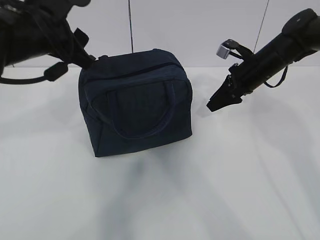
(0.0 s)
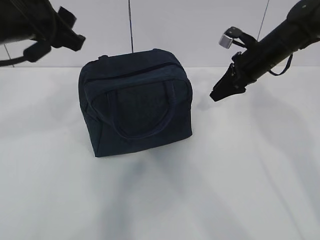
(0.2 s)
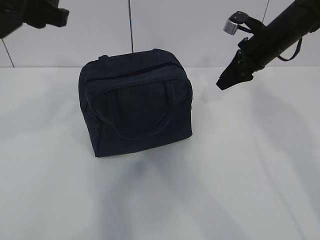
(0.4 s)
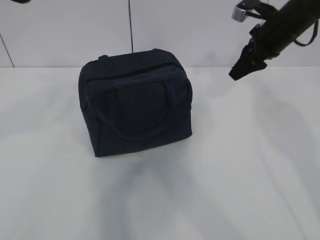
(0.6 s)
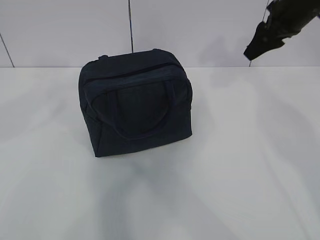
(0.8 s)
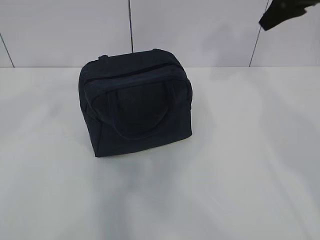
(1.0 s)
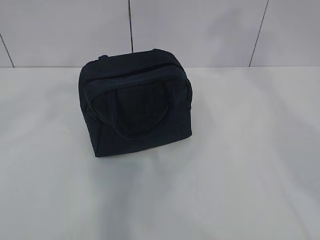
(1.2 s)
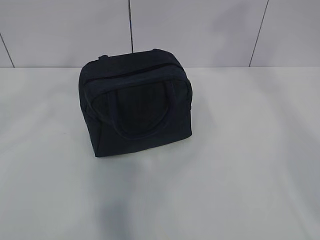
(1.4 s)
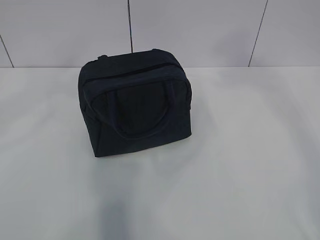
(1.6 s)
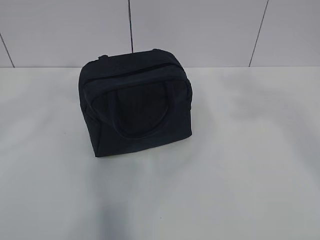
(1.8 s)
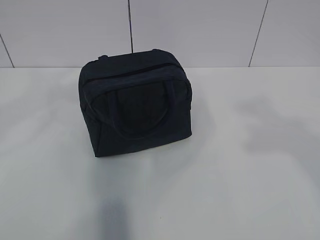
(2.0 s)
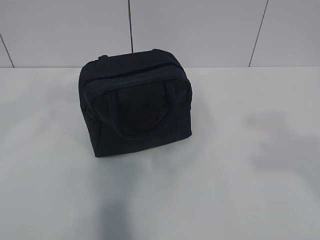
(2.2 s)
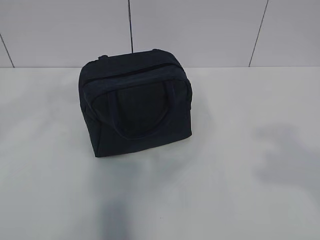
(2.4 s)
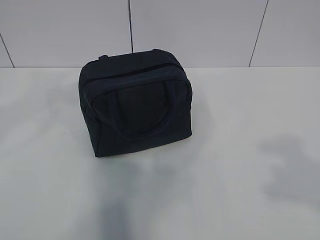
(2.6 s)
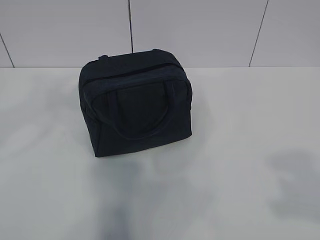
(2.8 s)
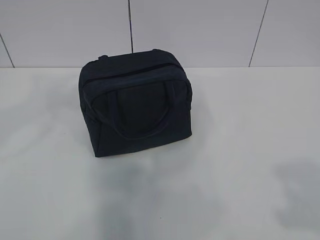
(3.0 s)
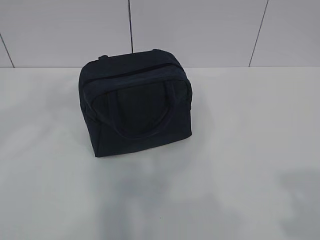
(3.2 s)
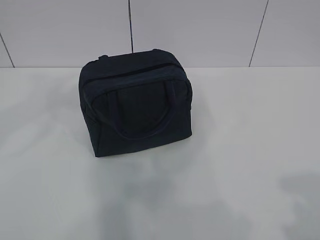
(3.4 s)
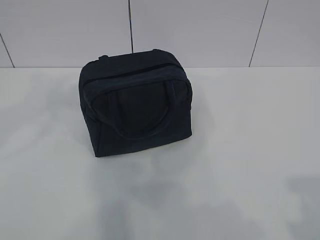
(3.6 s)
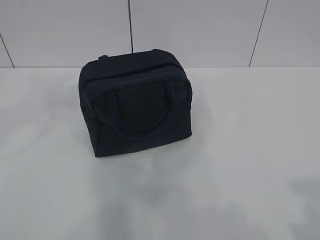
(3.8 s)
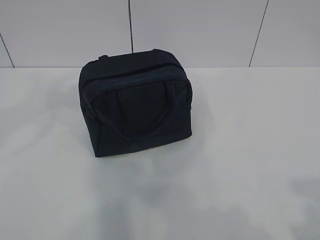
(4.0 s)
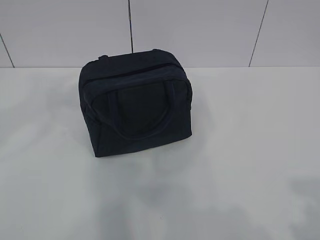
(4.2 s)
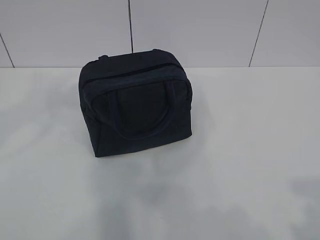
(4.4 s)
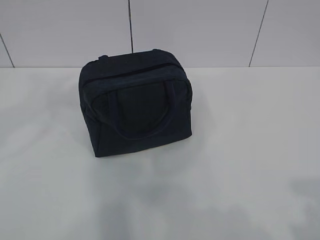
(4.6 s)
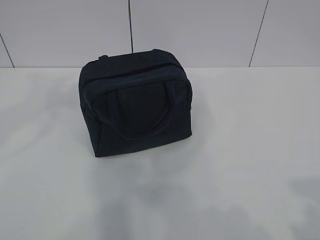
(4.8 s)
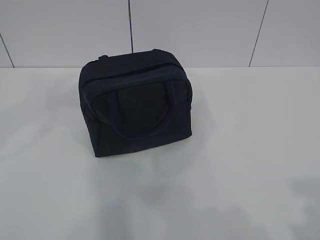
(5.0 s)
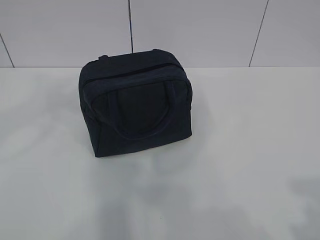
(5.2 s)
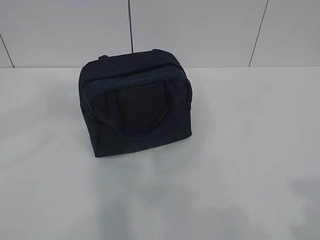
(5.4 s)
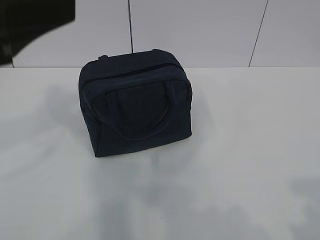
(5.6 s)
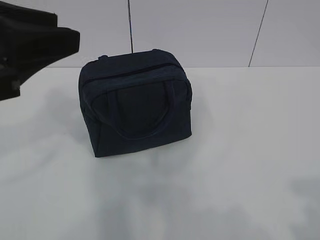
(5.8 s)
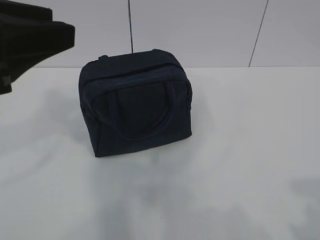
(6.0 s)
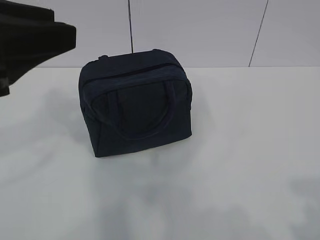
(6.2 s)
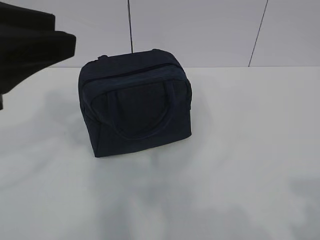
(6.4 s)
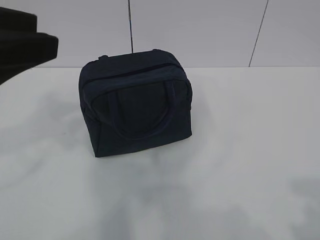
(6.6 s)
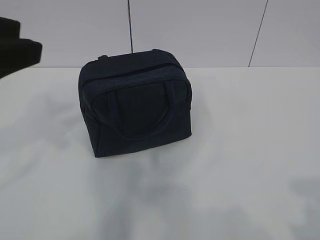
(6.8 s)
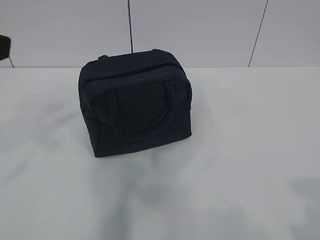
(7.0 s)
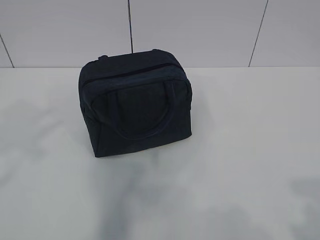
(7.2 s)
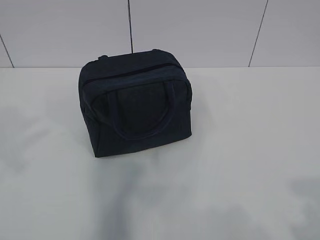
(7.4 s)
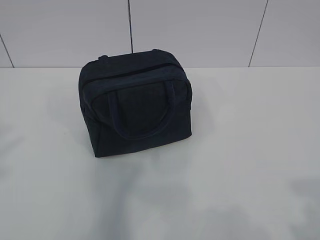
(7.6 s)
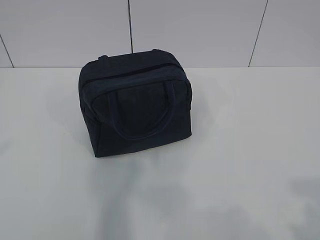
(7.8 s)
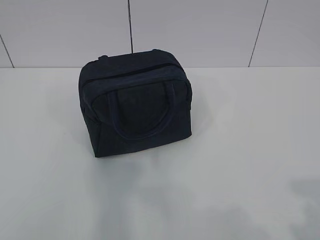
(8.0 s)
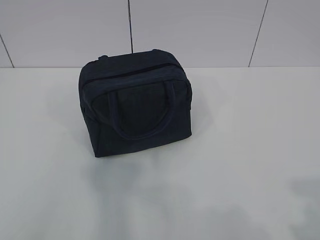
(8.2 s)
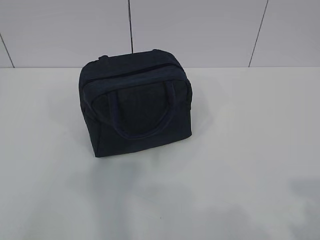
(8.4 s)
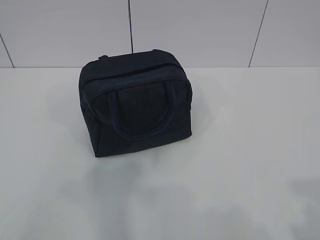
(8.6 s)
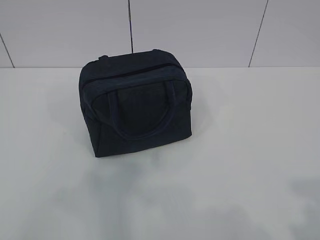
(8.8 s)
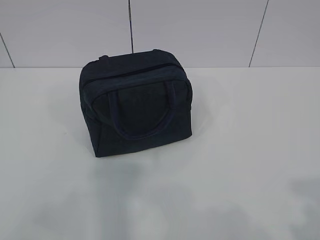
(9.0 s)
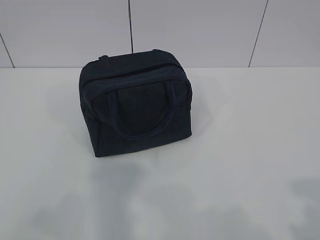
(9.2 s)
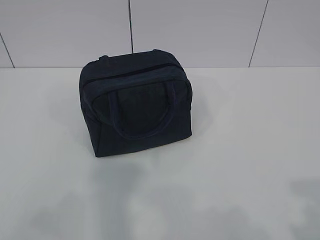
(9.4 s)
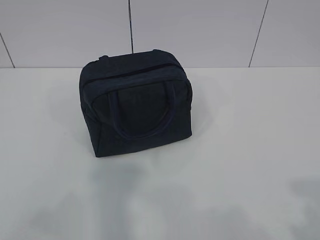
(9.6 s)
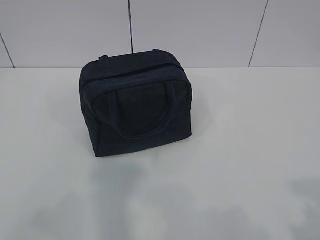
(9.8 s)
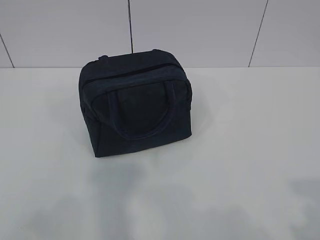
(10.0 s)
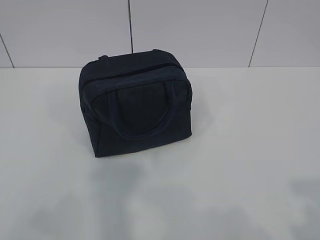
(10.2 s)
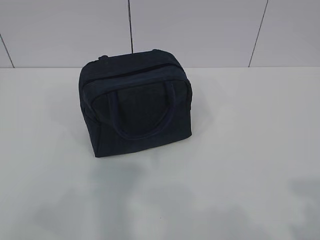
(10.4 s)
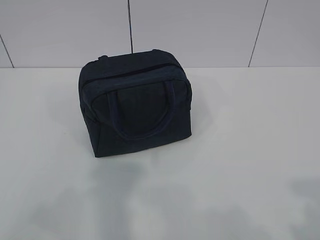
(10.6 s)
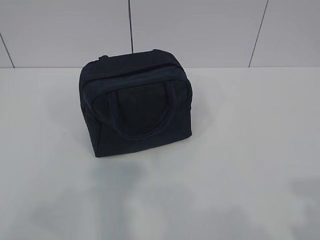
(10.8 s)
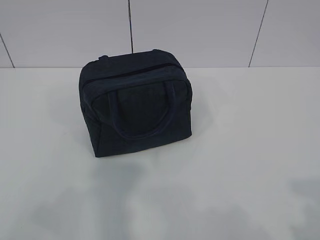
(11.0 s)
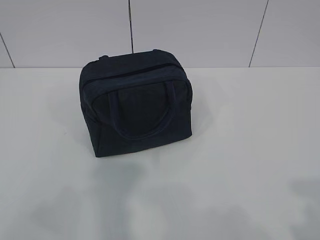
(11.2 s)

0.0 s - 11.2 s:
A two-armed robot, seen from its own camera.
0.0 s - 1.6 s: The left gripper shifts about 20 cm upward and backward; the right gripper goes some 40 cm upward and backward.
4.8 s - 6.4 s: The left gripper heads downward, covering roughly 5 cm.
6.4 s - 8.0 s: The left gripper is displaced to the left and backward by approximately 20 cm.
9.6 s - 11.2 s: Both grippers stay about where they are.

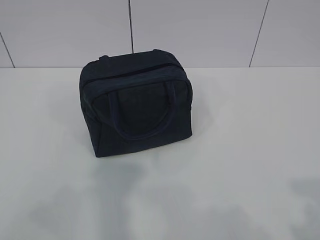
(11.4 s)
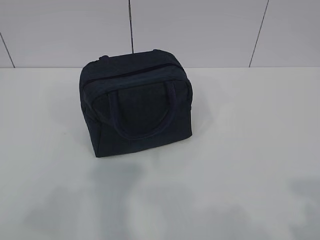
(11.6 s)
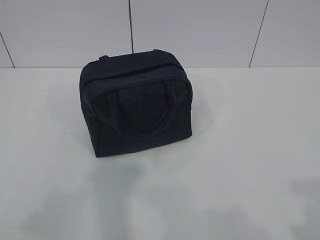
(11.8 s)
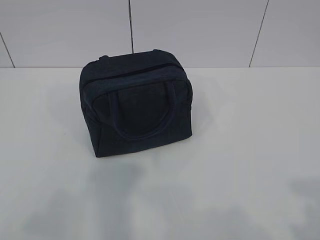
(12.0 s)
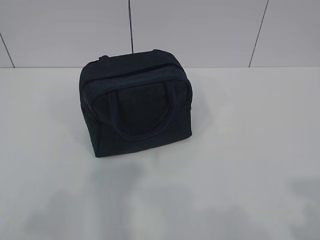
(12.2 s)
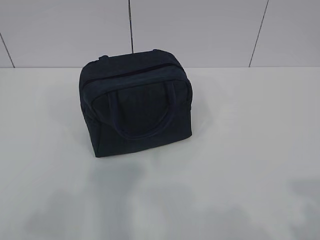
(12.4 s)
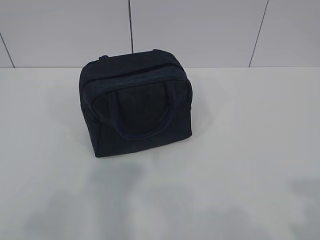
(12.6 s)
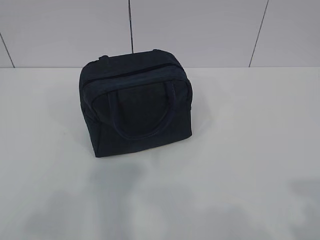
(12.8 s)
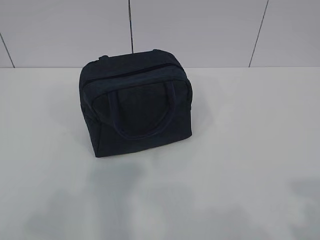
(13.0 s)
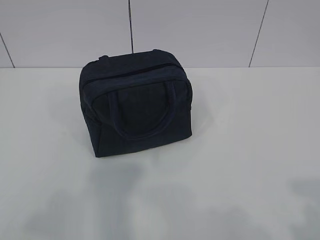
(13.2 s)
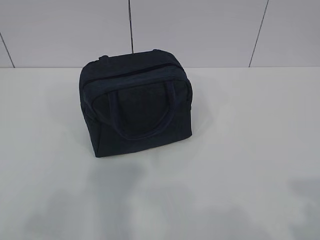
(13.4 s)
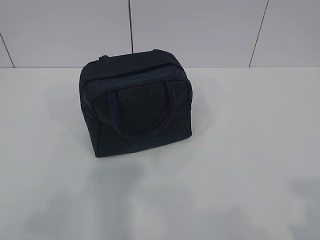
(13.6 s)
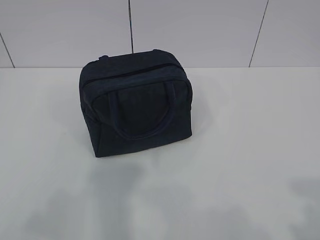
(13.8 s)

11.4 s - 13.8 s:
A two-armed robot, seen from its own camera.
12.6 s - 13.8 s: The two grippers keep their place.

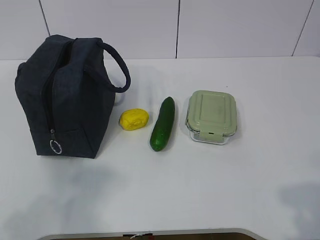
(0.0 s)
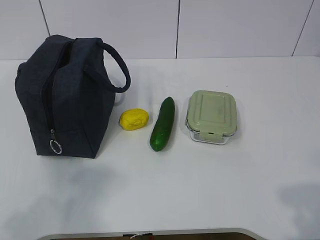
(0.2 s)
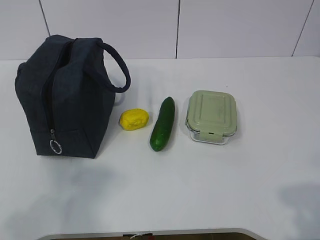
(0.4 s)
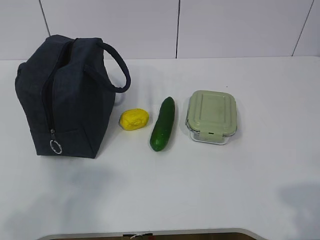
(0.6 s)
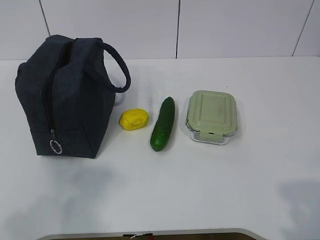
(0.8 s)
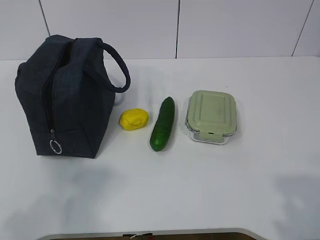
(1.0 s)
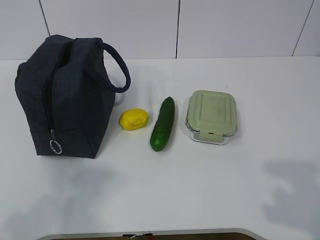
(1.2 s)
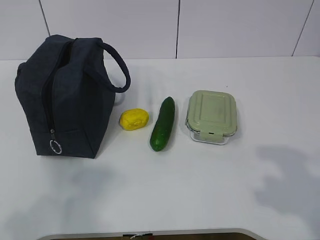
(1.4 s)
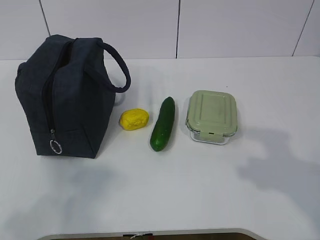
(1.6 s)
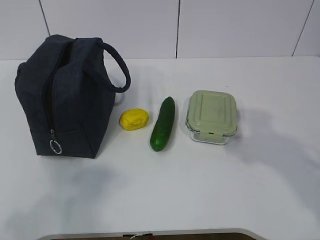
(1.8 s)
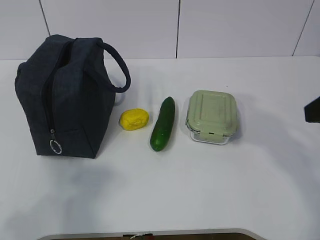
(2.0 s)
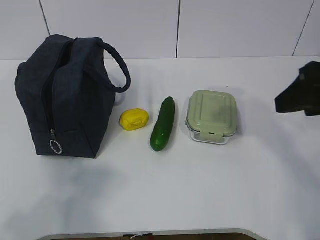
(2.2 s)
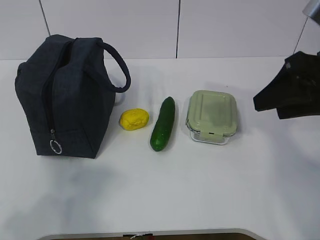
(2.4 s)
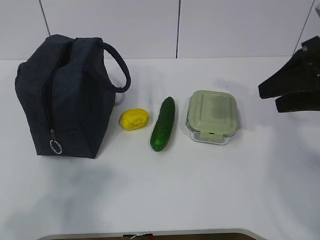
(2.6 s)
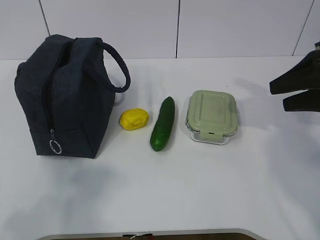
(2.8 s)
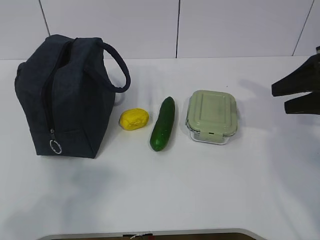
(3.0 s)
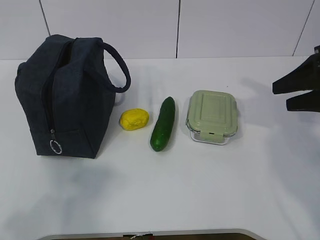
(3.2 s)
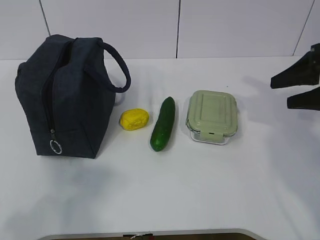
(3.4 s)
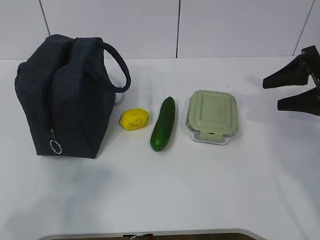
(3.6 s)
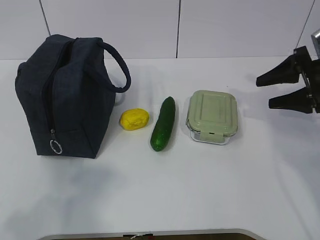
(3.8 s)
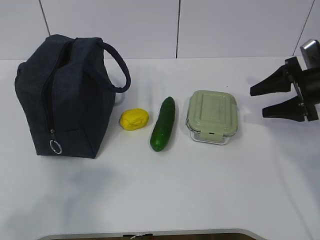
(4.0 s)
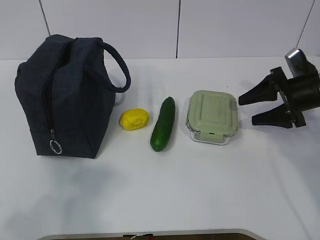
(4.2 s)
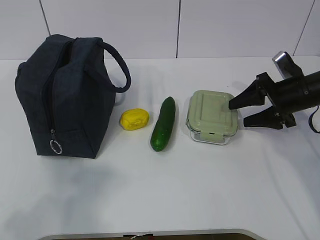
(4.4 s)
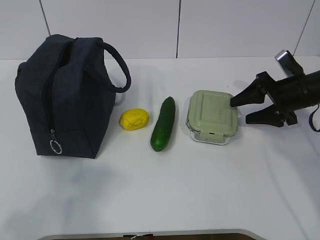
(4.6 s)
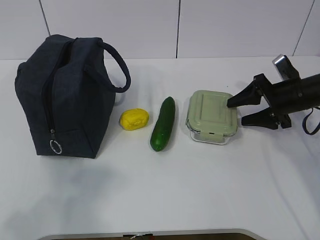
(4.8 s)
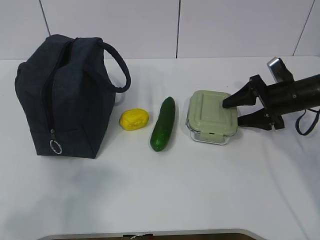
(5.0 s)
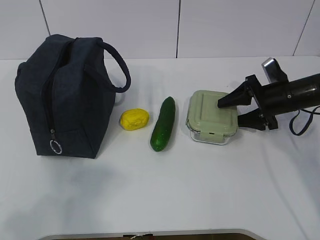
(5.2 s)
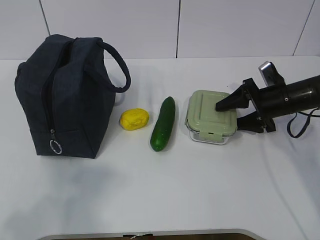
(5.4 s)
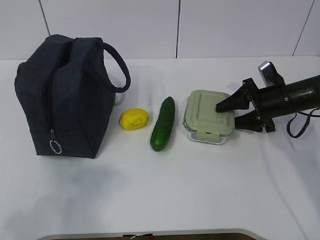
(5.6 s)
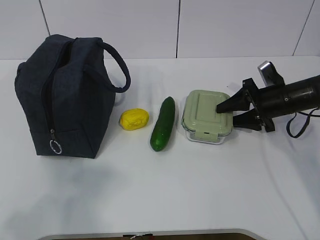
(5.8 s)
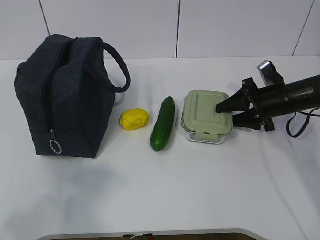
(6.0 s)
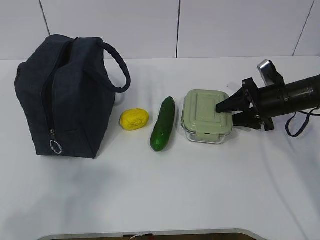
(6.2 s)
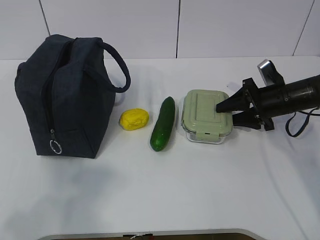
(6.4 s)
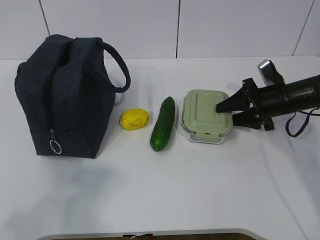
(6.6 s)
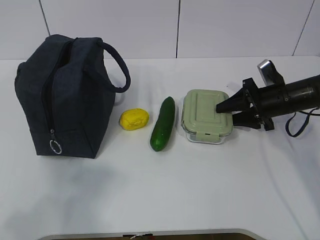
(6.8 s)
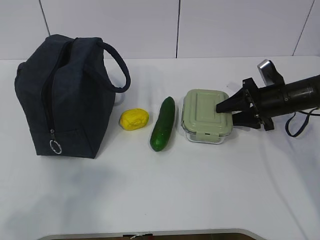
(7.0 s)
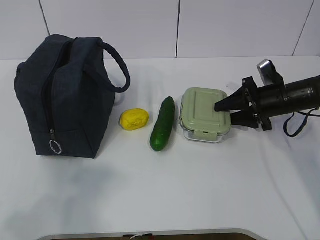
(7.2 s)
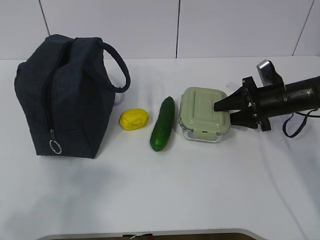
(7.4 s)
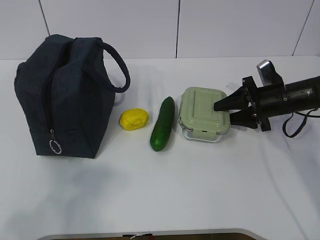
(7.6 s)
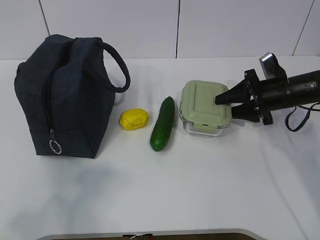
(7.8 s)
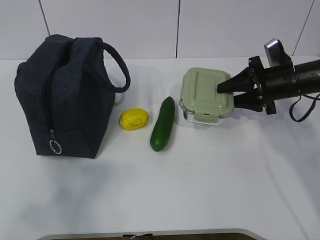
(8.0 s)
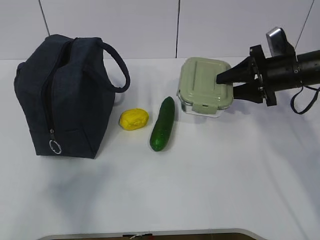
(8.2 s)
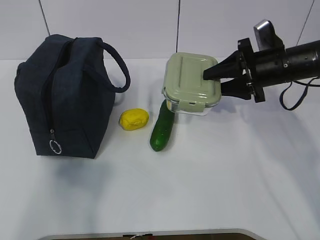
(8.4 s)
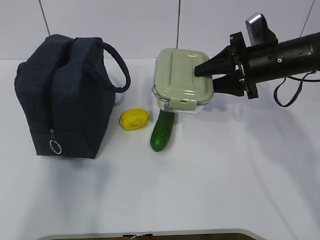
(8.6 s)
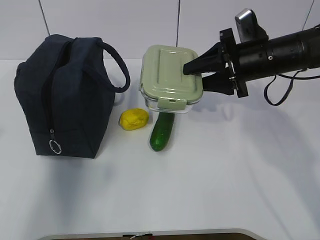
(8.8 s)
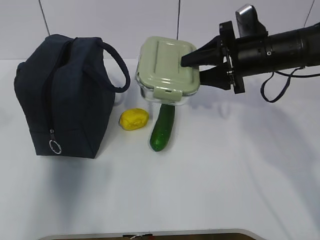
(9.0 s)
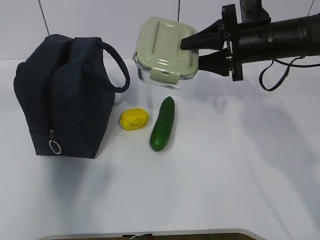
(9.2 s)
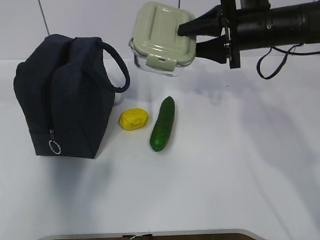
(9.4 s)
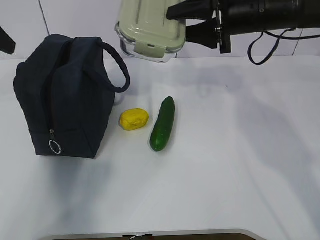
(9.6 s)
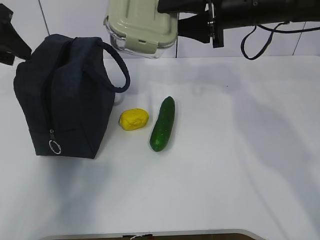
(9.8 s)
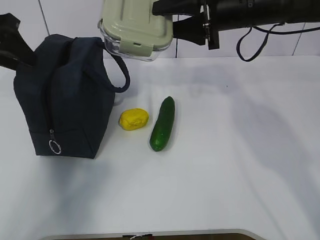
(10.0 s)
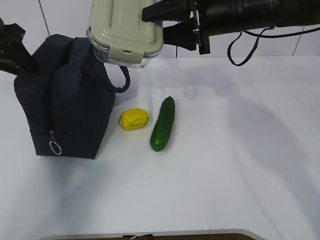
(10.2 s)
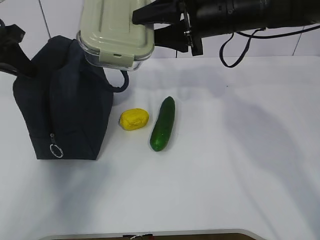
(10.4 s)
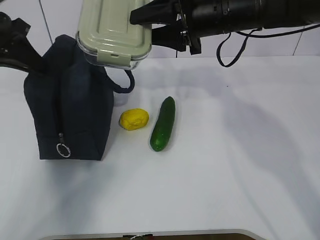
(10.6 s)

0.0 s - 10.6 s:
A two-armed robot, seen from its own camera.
Step, 0.0 s - 5.8 s: Grab the lunch box with your right hand.
Step, 6.0 s - 9.0 s: Grab the lunch bag with your left hand.
1.6 s - 3.0 s: The right gripper goes some 20 cm forward.
3.0 s - 4.6 s: The right gripper moves downward and forward, about 15 cm.
4.6 s - 6.0 s: There are only small adjustments of the grippers.
6.0 s - 7.6 s: The two grippers keep their place.
7.6 s - 9.0 s: The left gripper heads forward and upward, covering some 20 cm; the right gripper shifts some 15 cm upward and to the left.
9.0 s - 10.6 s: The left gripper heads forward, covering some 20 cm, and closes. Meanwhile the right gripper goes some 10 cm to the left and upward.
